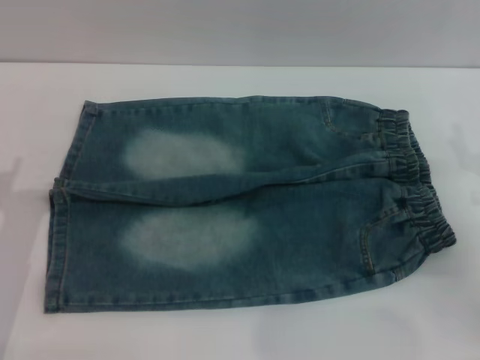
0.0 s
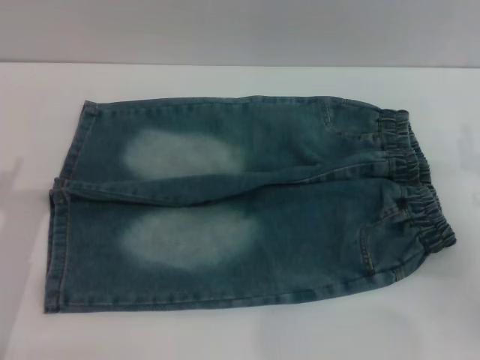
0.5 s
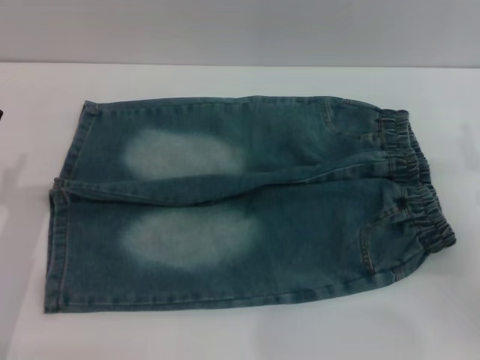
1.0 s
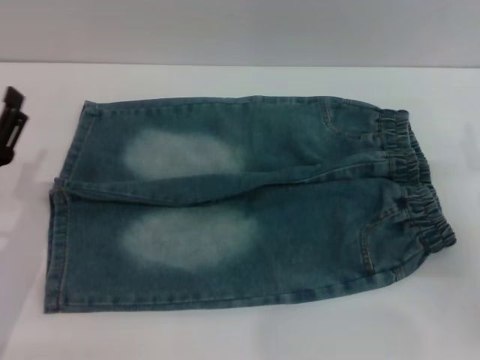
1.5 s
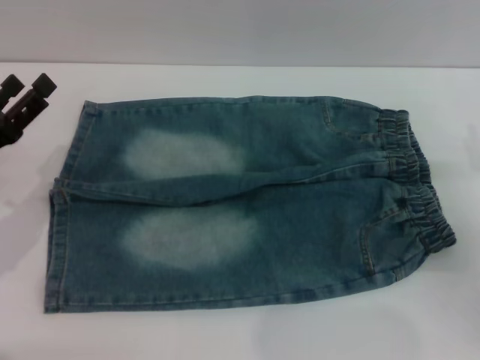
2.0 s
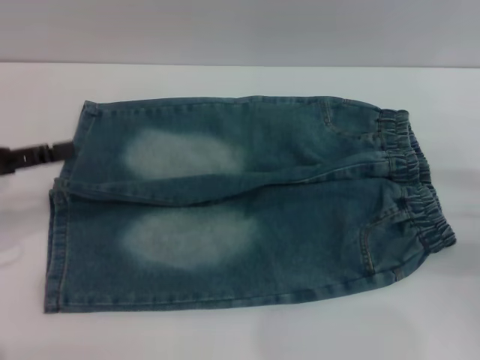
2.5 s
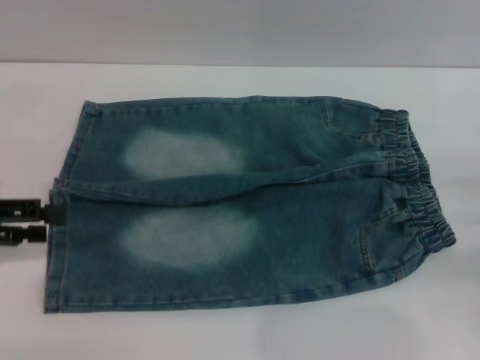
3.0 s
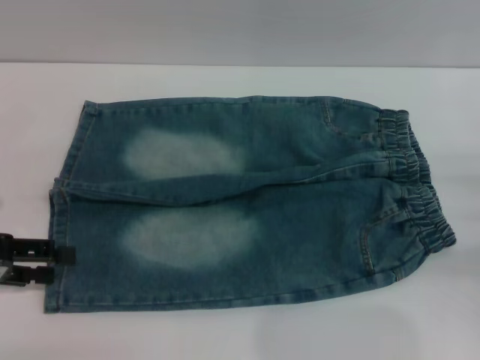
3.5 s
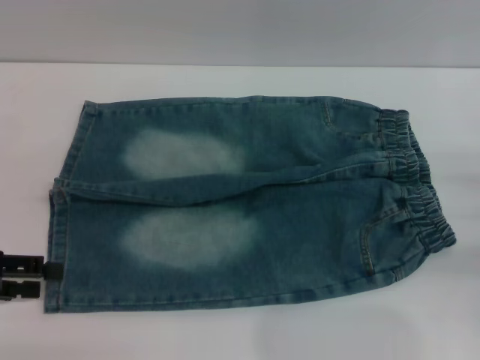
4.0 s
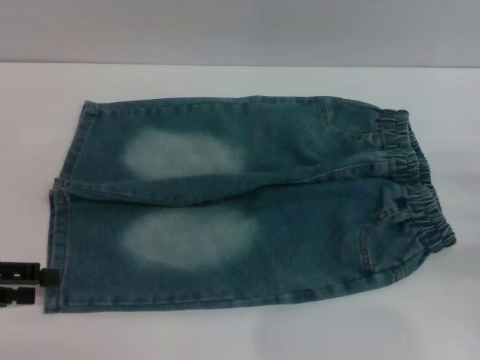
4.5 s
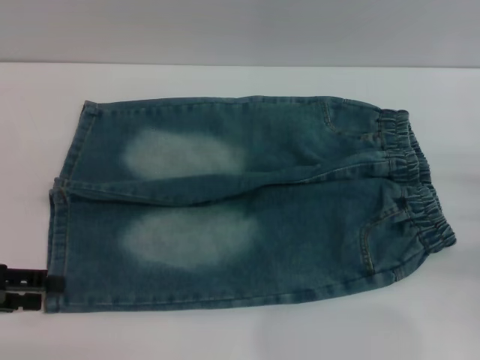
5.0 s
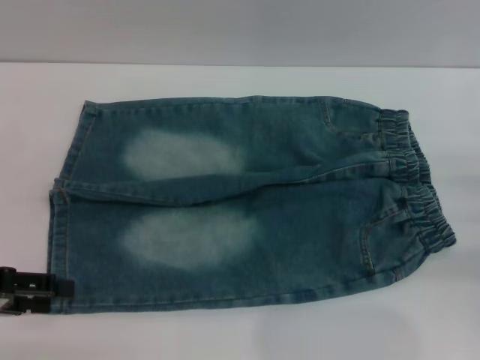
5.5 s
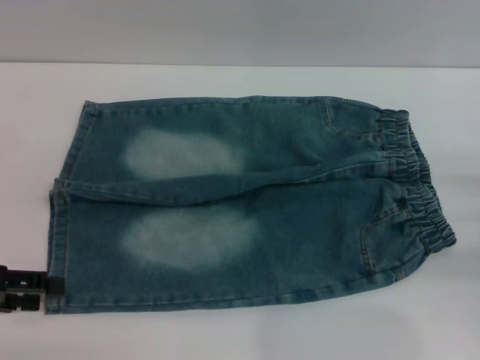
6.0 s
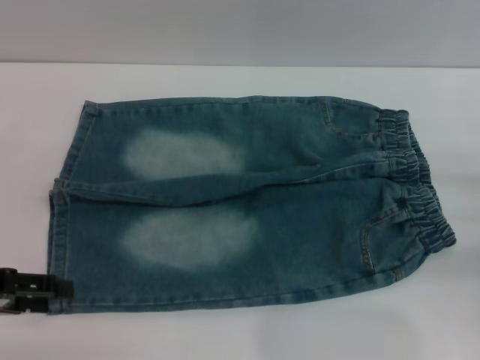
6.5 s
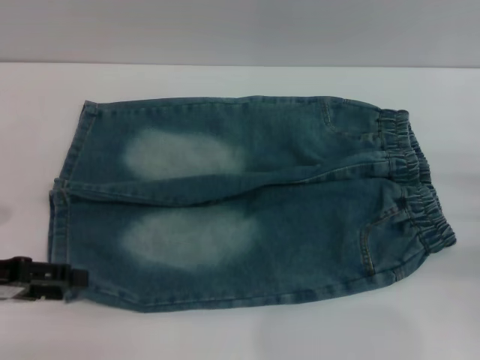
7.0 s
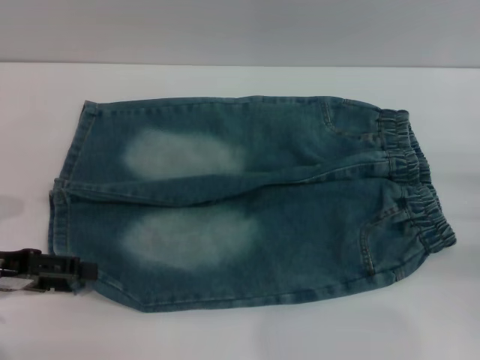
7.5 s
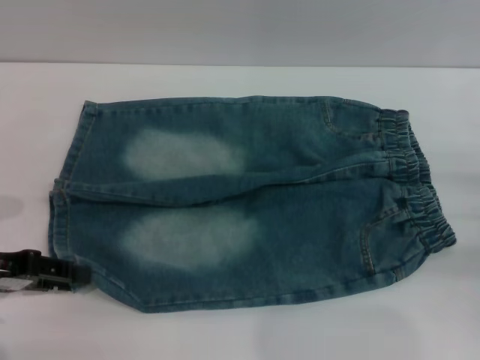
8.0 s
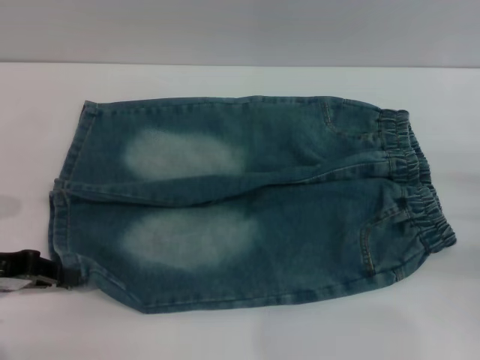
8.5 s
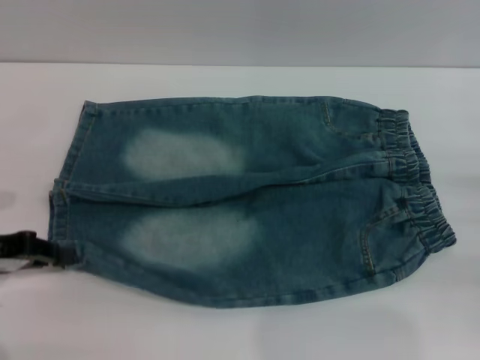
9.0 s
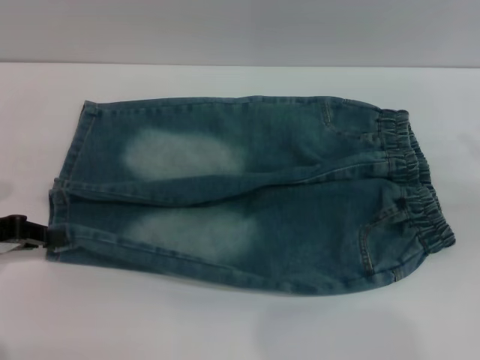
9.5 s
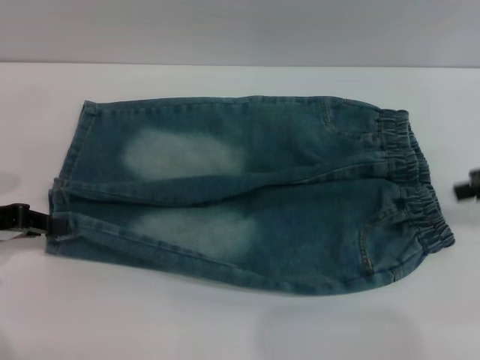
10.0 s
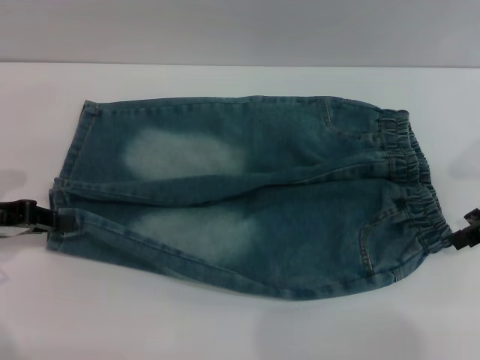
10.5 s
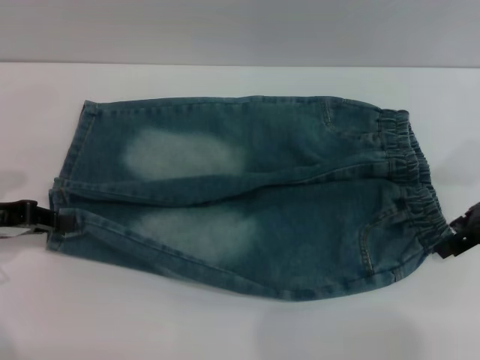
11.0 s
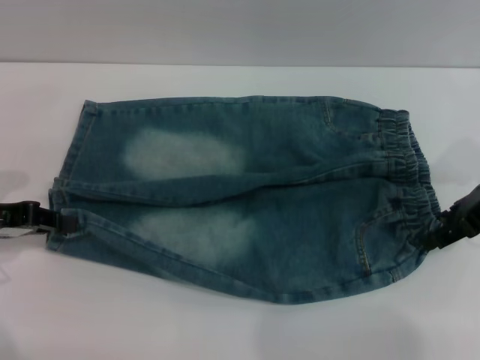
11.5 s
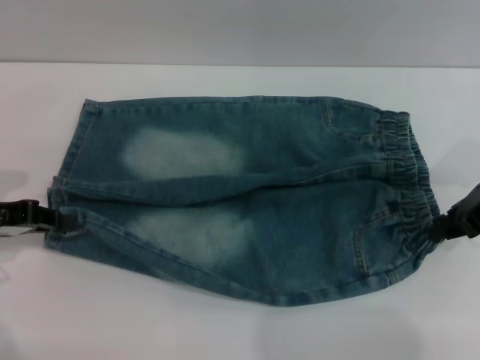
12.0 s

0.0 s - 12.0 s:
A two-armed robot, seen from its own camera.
Step, 0.0 s - 8.0 s: Grasp the lower left leg of the shorts with left gripper.
0.0 s - 2.0 s: The left gripper moves about 5 cm.
2.0 s - 4.0 s: The left gripper goes approximately 5 cm to the left.
4.0 s - 8.0 s: The grippers move only a little.
8.0 s - 10.0 s: The left gripper closes up; the right gripper travels upward and forward by approximately 15 cm.
10.0 s - 12.0 s: The right gripper is displaced to the left by some 5 cm, and closes.

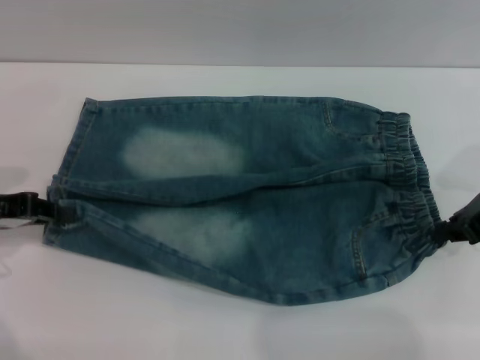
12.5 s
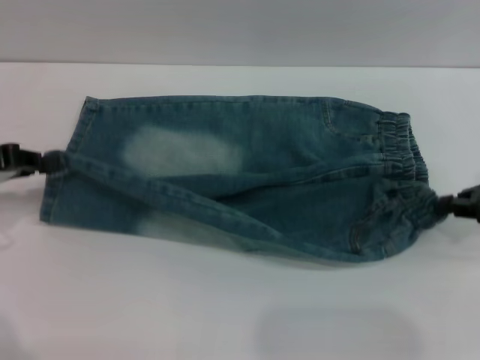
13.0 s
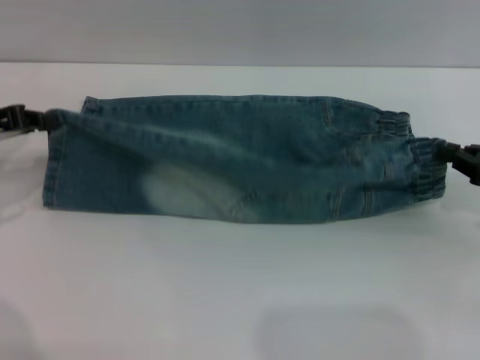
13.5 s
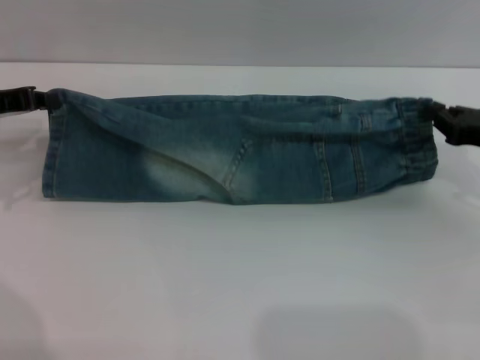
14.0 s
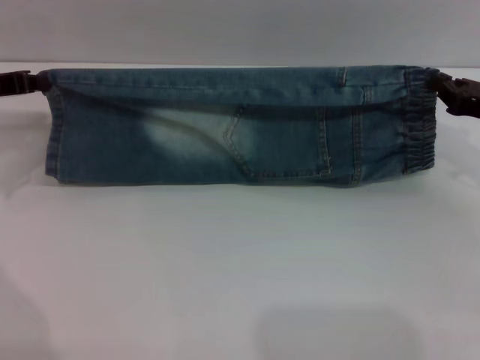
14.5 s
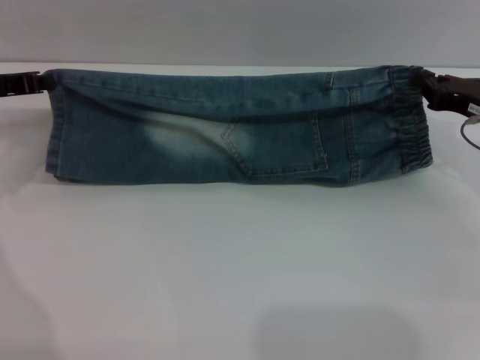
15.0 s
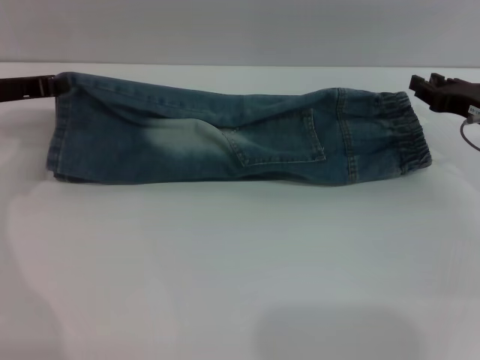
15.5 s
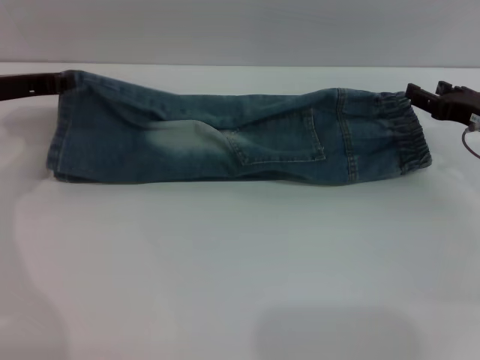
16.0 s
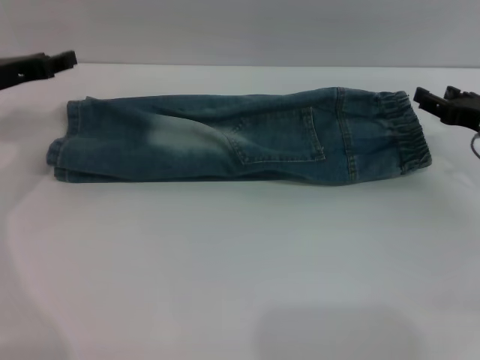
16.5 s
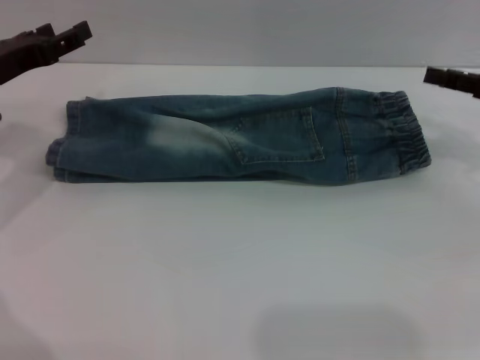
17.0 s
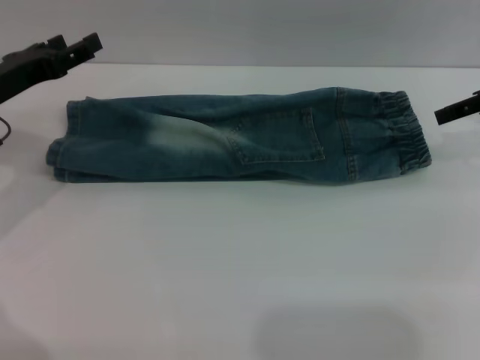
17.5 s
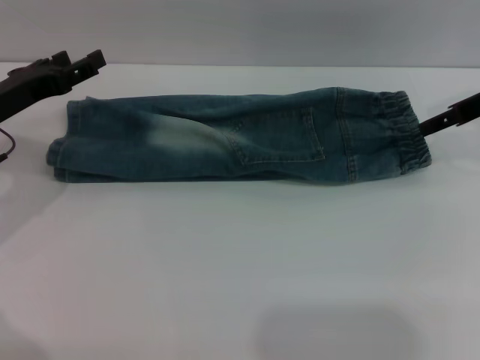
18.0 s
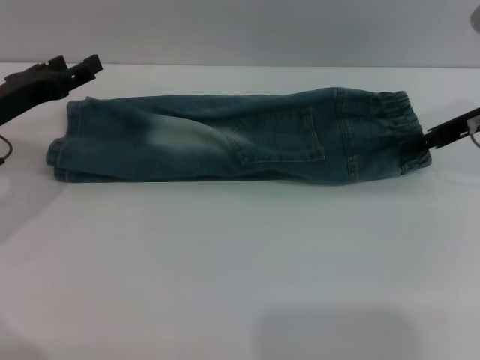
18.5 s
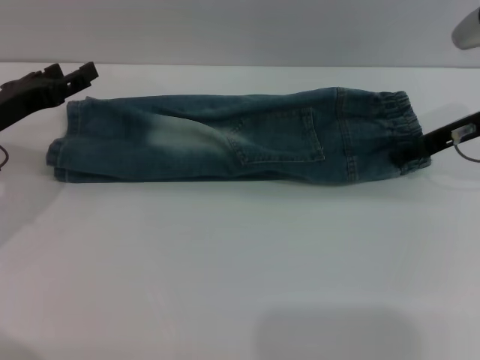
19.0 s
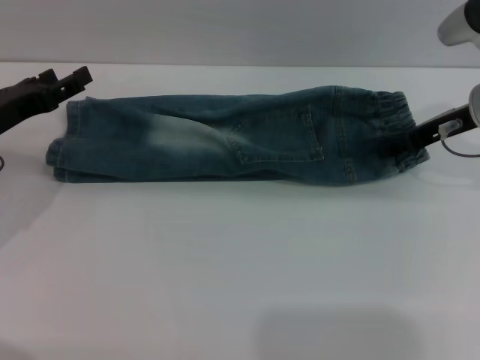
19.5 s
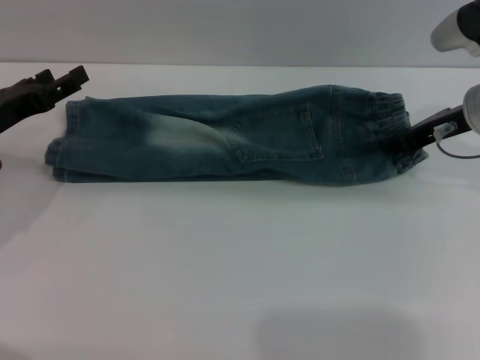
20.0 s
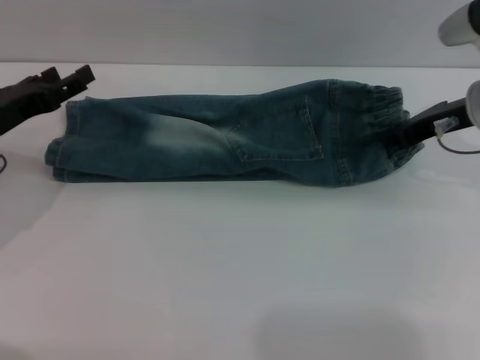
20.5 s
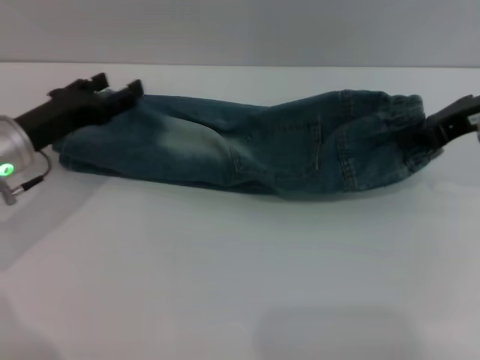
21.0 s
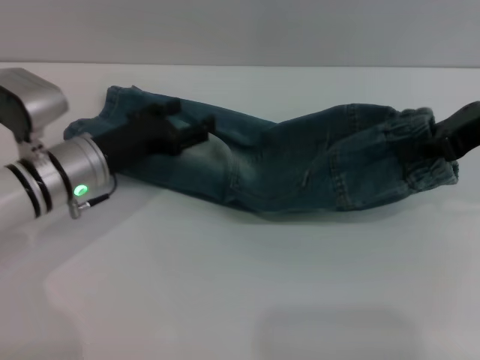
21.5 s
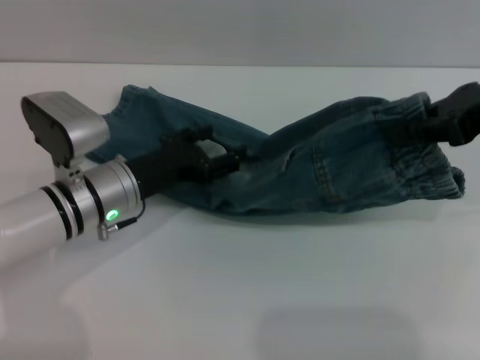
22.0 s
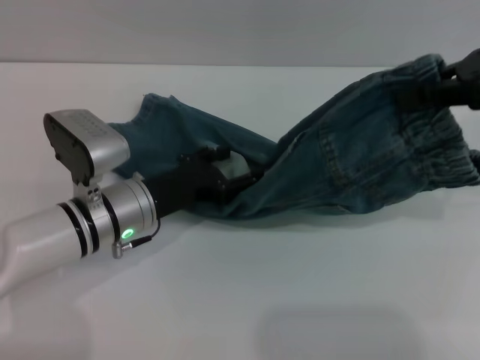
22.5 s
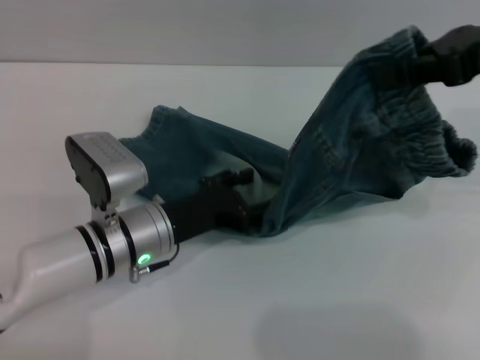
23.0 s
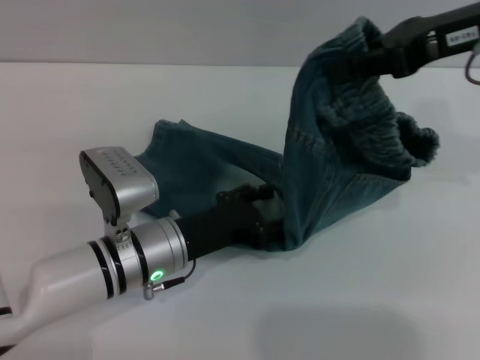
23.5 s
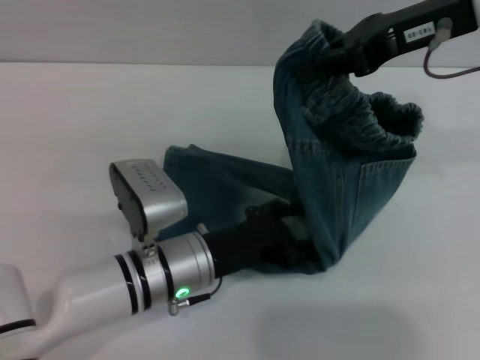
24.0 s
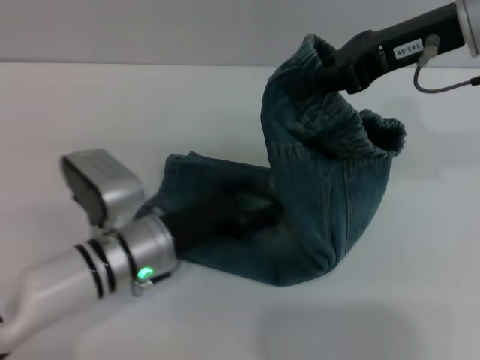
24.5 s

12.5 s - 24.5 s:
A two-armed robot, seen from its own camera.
Step, 12.5 s - 16.0 s: Fold the bottom of the shorts upward with left gripper.
12.5 s - 14.5 s: The left gripper goes approximately 10 cm forward.
14.5 s - 16.5 s: The right gripper opens up.
16.5 s - 18.5 s: The right gripper shifts about 10 cm upward and forward, while the left gripper opens.
18.5 s - 20.5 s: The right gripper closes its fingers.
20.5 s - 22.5 s: The left gripper moves to the right and downward, approximately 15 cm; the right gripper heads upward and backward, covering some 15 cm.
22.5 s - 24.5 s: The right gripper moves to the left and forward, approximately 10 cm.

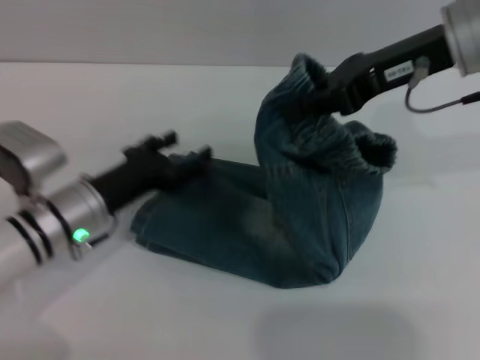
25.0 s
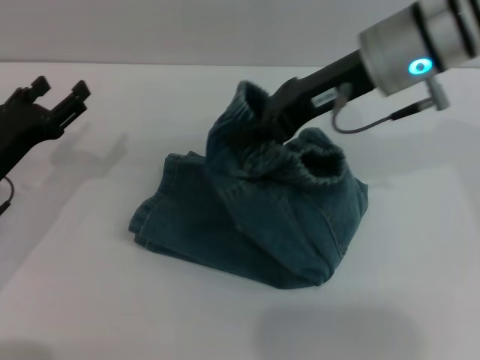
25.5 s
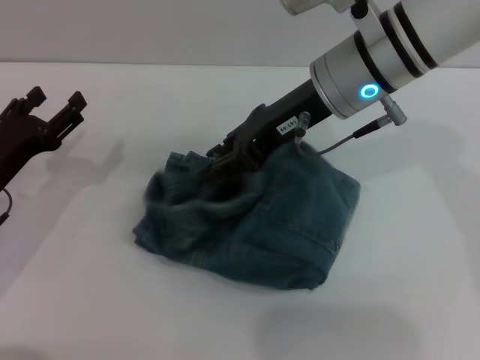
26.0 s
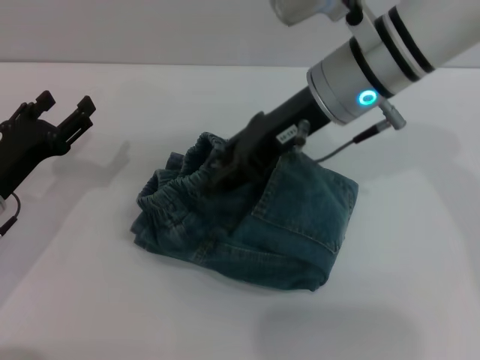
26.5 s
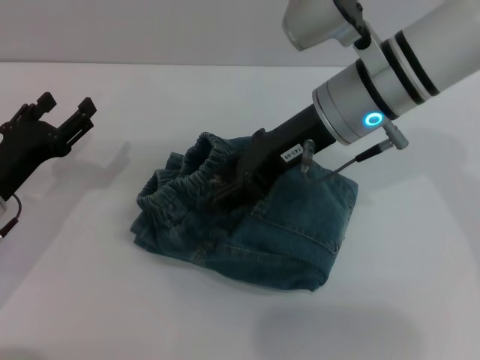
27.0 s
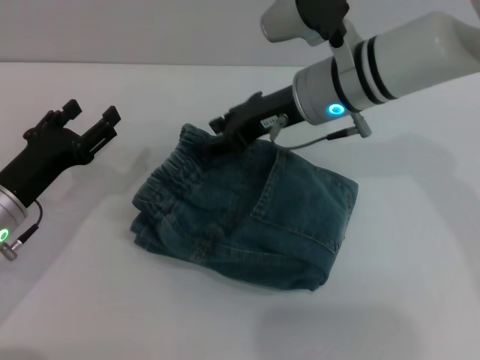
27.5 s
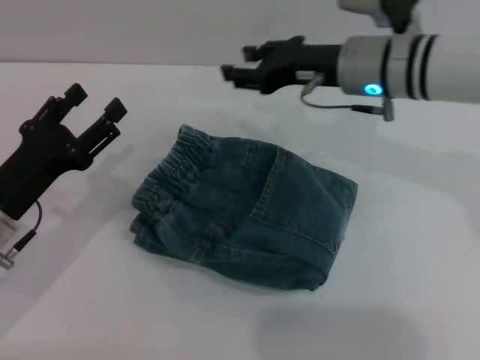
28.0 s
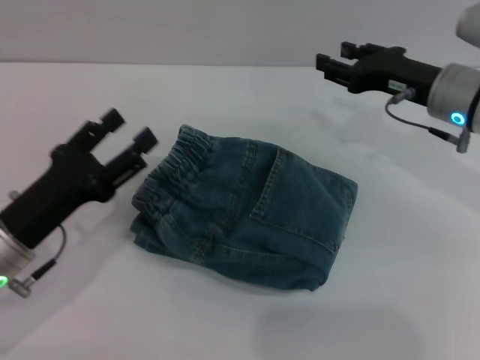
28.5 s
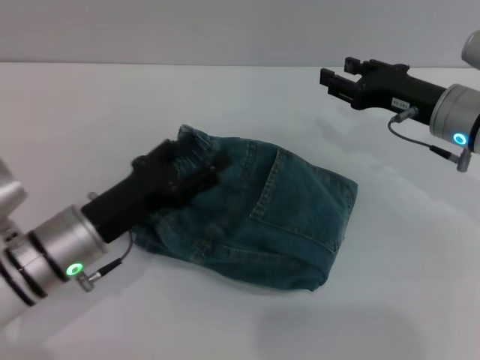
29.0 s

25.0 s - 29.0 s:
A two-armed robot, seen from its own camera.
Step, 25.0 s - 27.5 s: Fold the shorts from right to left with right gripper.
25.0 s - 27.0 s: The right gripper goes roughly 10 cm to the left and downward, and opens its fingers, while the left gripper shifts roughly 10 cm to the left.
27.0 s - 29.0 s: The right gripper shifts about 15 cm to the right and downward. The left gripper travels to the right by approximately 10 cm.
